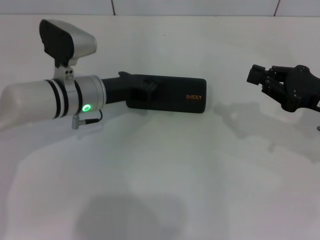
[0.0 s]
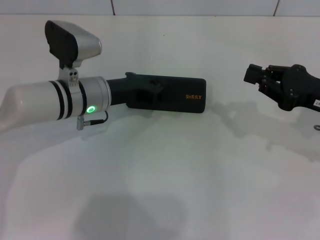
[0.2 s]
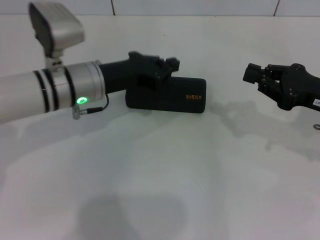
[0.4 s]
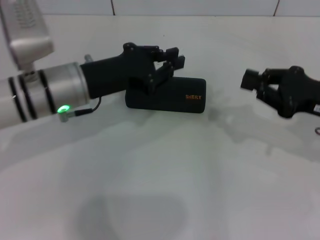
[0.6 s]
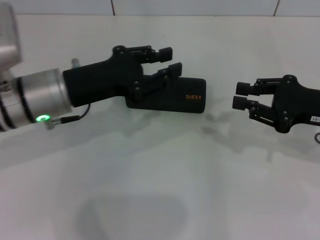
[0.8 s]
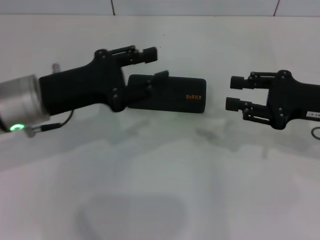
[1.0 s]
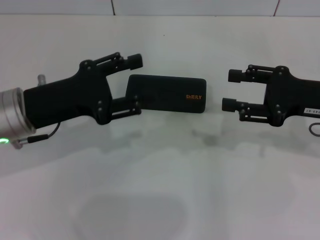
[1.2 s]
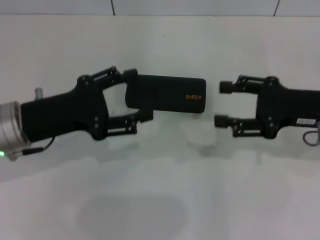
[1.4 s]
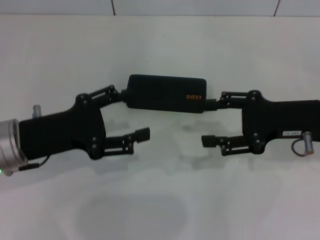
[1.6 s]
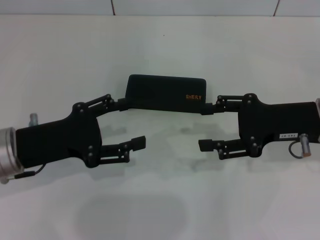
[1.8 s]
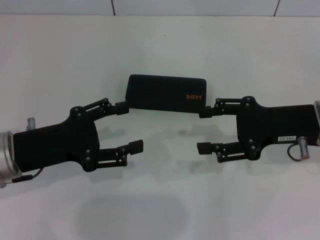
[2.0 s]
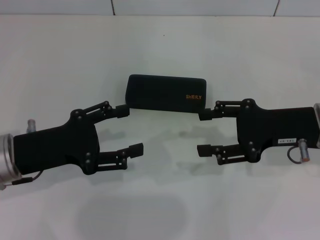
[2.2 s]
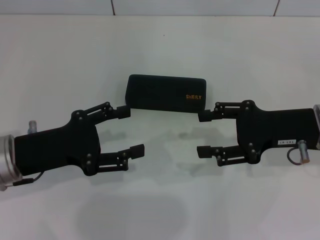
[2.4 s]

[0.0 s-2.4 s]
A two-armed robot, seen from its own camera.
0.0 to 1.2 s: The left gripper heads backward, upward and to the left, covering approximately 15 cm, and opens its fingers; the right gripper opens.
1.2 to 2.4 s: The left gripper changes place by roughly 5 cm, and opens up.

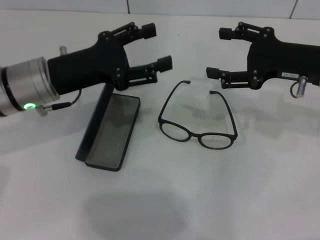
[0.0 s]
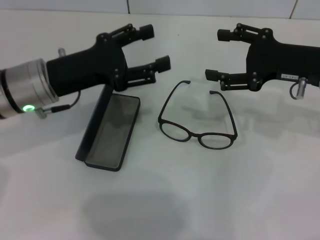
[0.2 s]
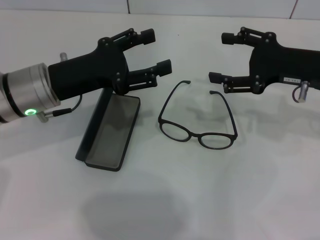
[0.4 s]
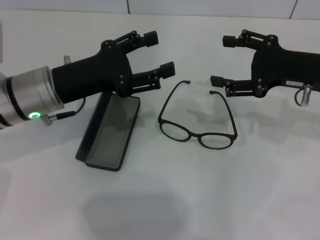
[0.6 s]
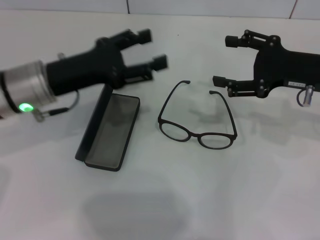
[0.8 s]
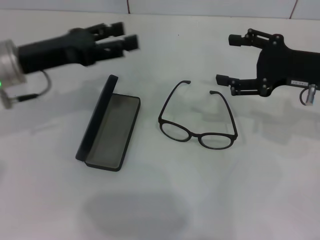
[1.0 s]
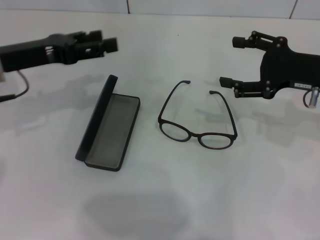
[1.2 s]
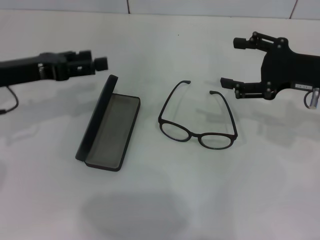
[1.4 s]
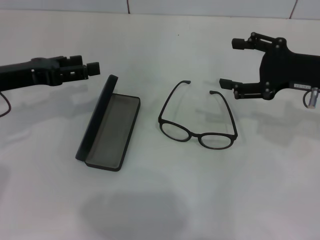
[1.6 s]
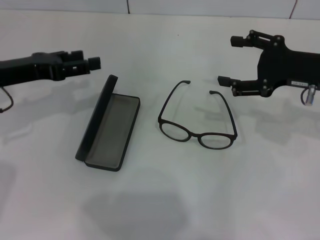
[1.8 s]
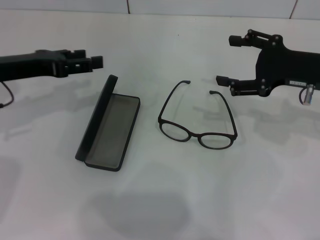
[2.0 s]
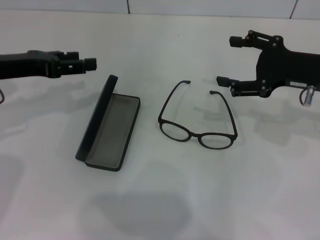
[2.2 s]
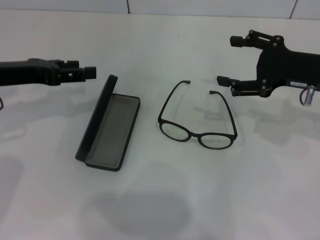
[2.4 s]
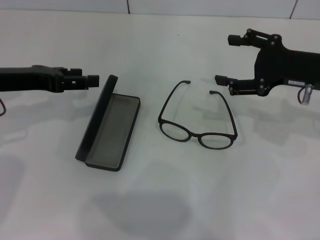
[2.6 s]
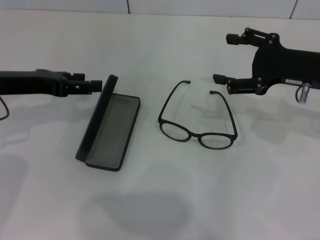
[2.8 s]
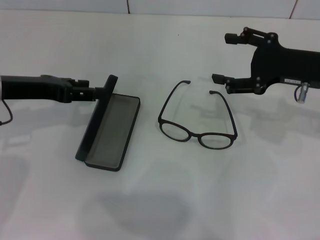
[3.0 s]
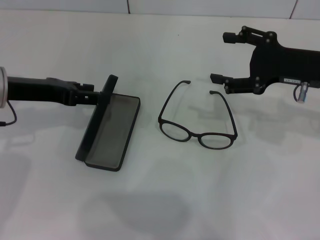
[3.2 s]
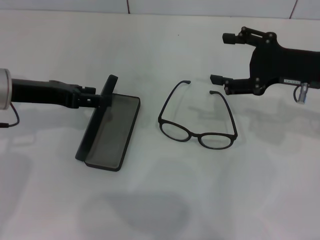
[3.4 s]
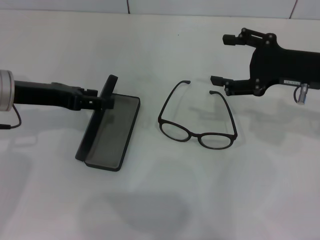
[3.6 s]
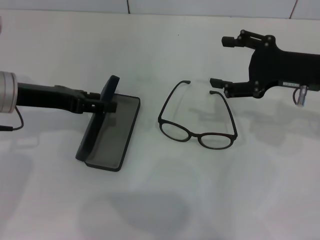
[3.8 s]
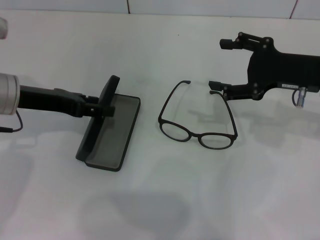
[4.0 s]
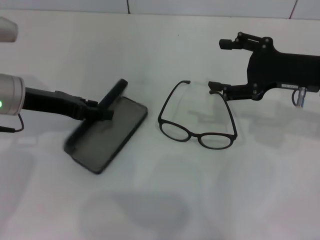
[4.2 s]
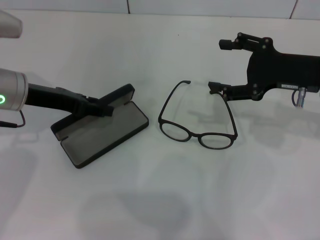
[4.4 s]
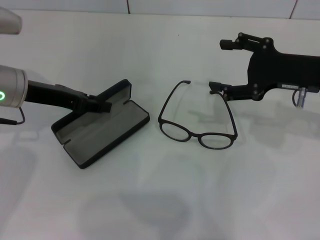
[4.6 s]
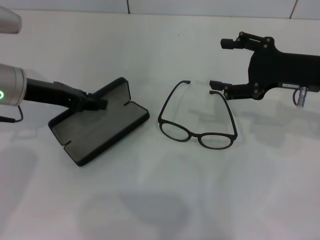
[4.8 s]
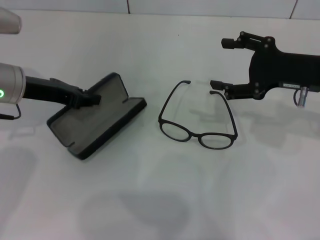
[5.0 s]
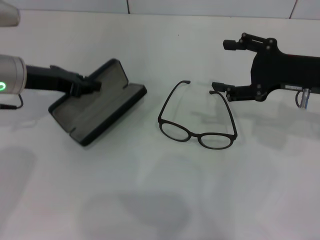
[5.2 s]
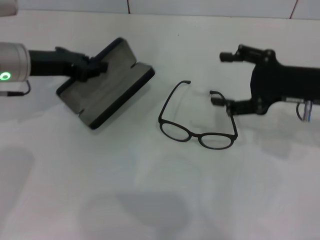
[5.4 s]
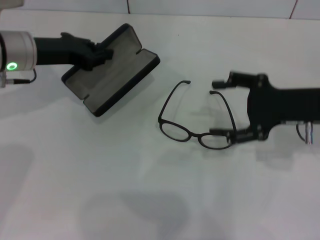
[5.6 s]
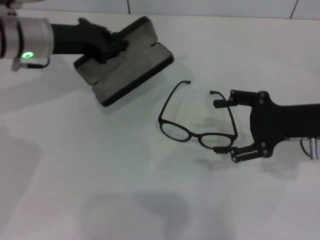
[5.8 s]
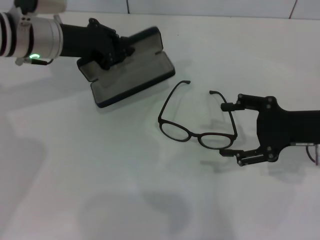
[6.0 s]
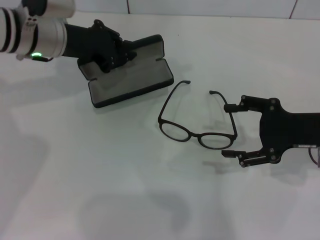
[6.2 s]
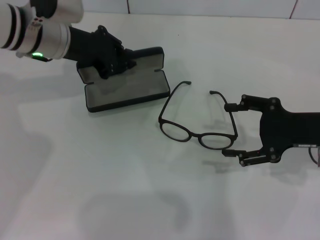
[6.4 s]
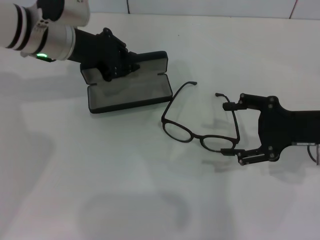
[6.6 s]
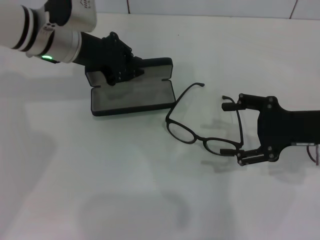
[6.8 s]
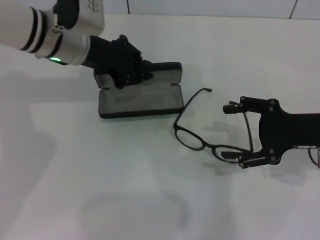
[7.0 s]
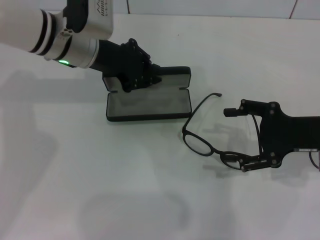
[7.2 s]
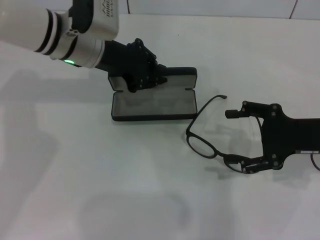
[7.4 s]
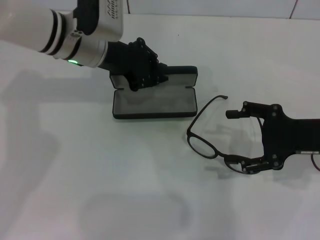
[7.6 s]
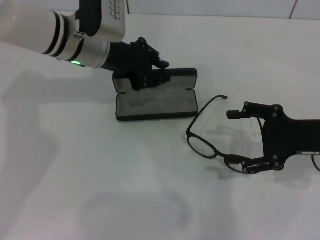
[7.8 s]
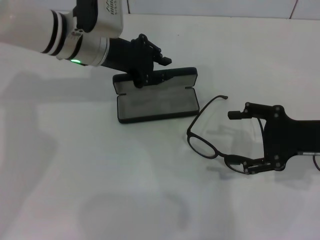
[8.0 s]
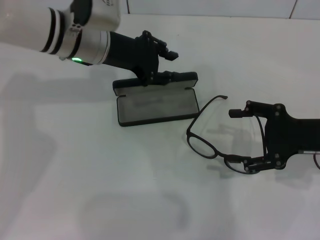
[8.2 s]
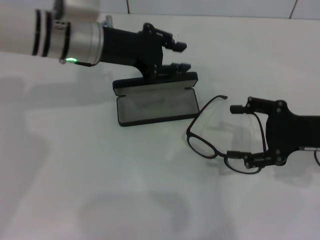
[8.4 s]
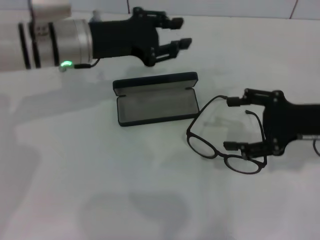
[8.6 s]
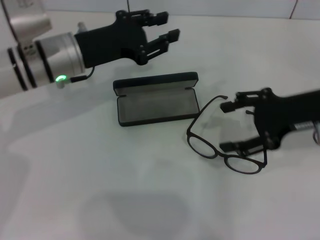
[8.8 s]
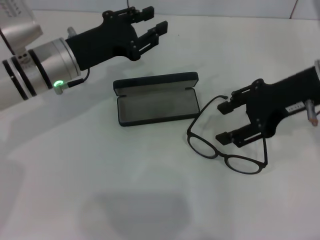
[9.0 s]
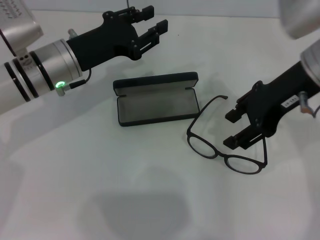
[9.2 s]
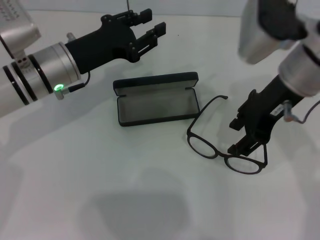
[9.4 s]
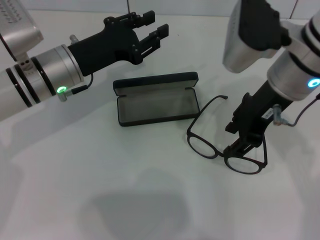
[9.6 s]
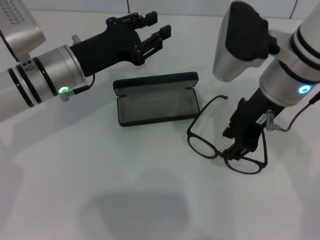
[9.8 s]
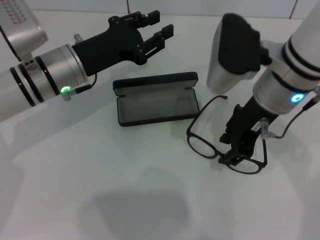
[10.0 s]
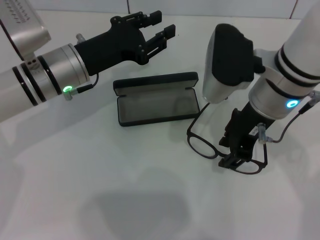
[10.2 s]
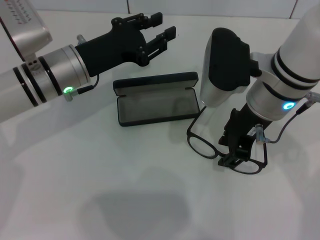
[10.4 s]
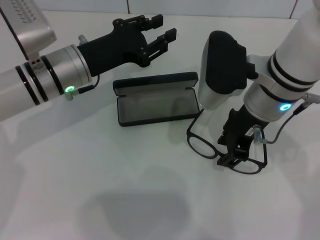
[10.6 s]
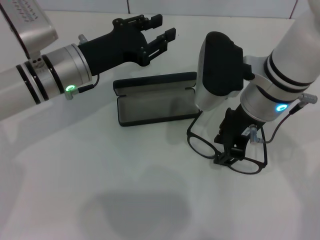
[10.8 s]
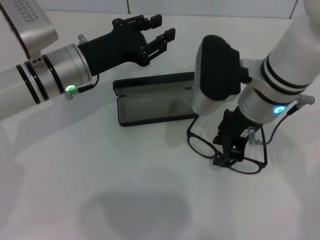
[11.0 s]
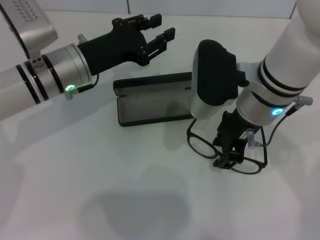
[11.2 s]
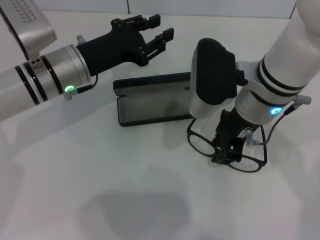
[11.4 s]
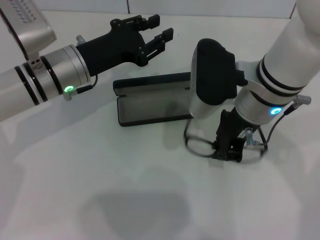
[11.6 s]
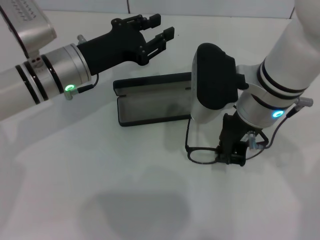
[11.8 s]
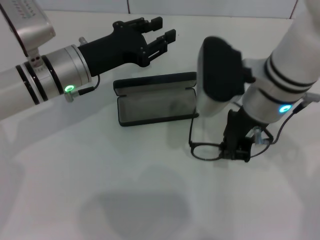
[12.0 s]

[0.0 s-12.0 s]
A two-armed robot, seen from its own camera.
Step, 0.0 to 4.4 s: Grab the glasses case with your left hand.
Step, 4.6 to 7.8 s: Place the glasses case in the center of the table with your left hand.
Step, 8.0 to 11.8 s: Grab the eyeglass frame with your right hand.
0.0 to 1.6 s: The left gripper heads to the left, covering some 10 cm.
1.6 to 3.0 s: There are only small adjustments of the grippers.
3.0 to 4.4 s: The grippers stay close to where they were, moving slightly.
4.4 to 6.0 s: The right gripper is displaced backward by roughly 5 cm, while the left gripper heads forward, covering approximately 5 cm, and closes its fingers.
6.0 to 7.6 s: The left gripper shifts roughly 5 cm to the right.
7.6 to 9.0 s: The right gripper shifts approximately 10 cm upward and to the left. The left gripper travels backward by some 5 cm.
9.0 to 10.4 s: The right gripper moves to the left, approximately 10 cm, and closes its fingers.
10.4 to 12.0 s: The right gripper closes.

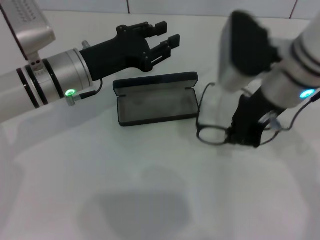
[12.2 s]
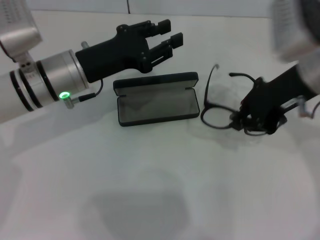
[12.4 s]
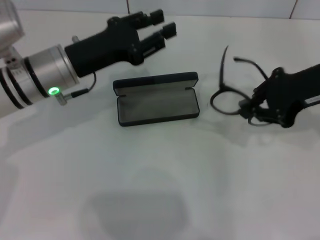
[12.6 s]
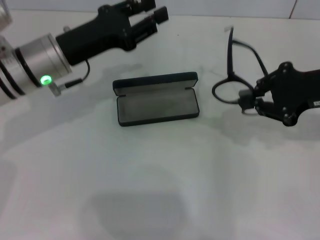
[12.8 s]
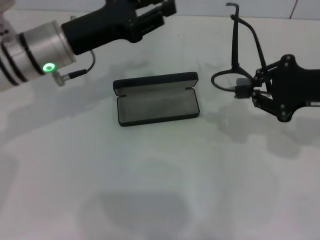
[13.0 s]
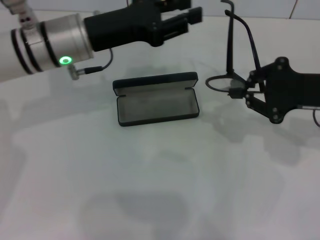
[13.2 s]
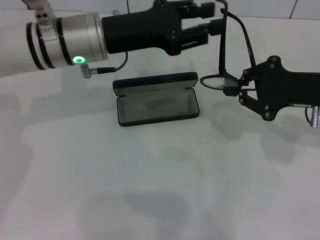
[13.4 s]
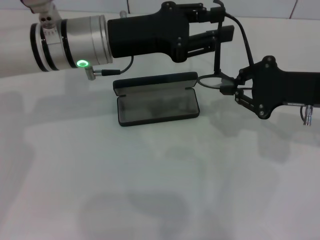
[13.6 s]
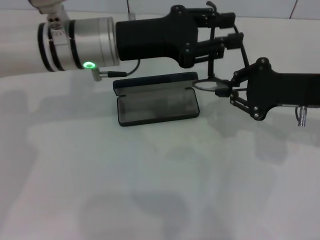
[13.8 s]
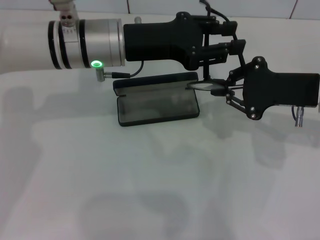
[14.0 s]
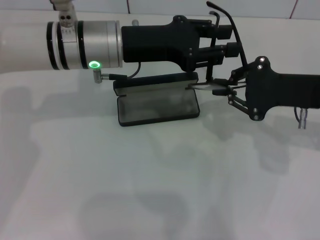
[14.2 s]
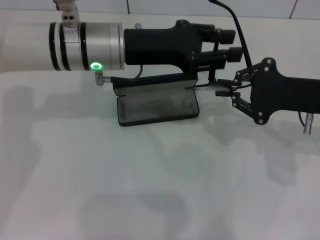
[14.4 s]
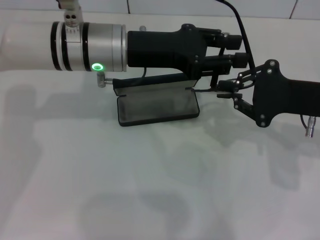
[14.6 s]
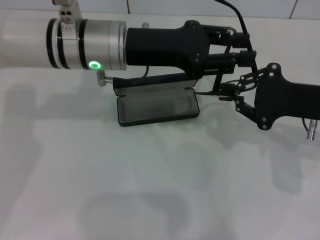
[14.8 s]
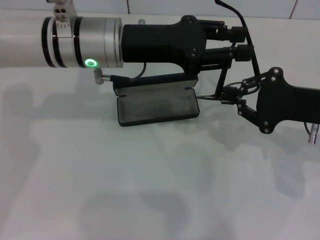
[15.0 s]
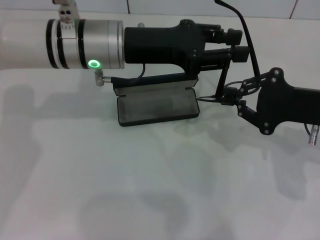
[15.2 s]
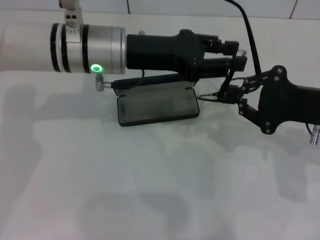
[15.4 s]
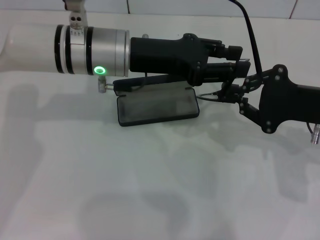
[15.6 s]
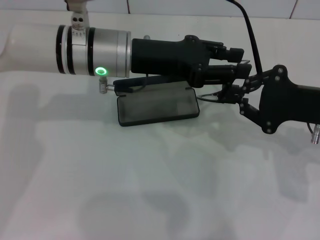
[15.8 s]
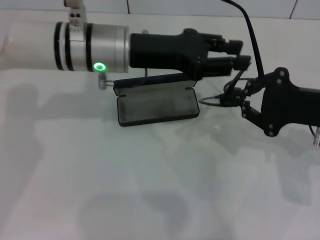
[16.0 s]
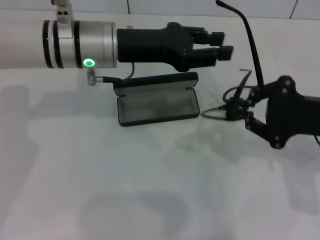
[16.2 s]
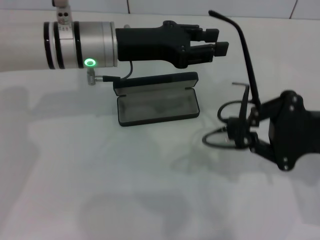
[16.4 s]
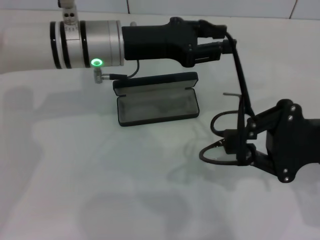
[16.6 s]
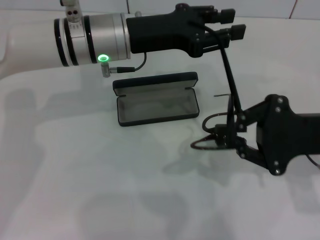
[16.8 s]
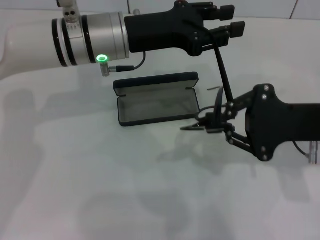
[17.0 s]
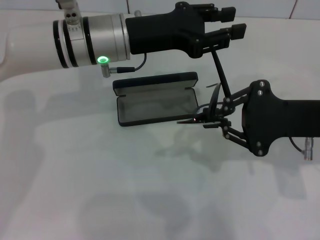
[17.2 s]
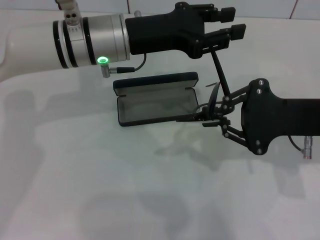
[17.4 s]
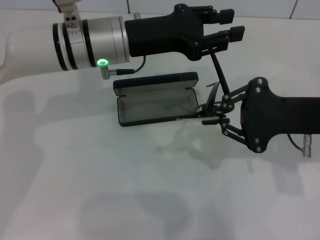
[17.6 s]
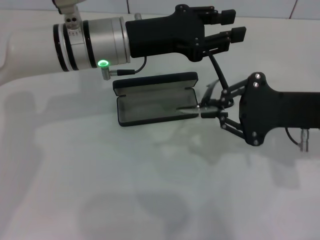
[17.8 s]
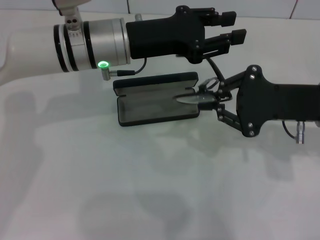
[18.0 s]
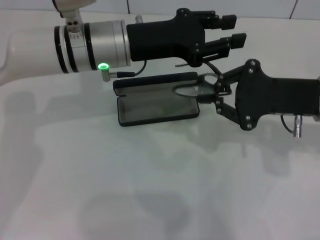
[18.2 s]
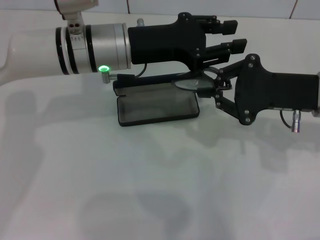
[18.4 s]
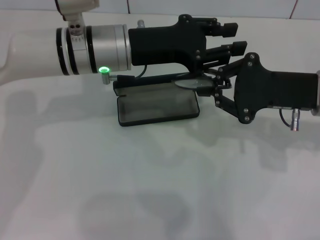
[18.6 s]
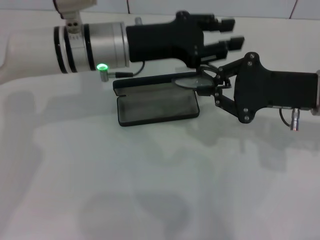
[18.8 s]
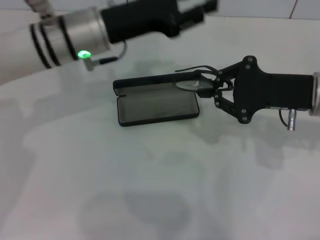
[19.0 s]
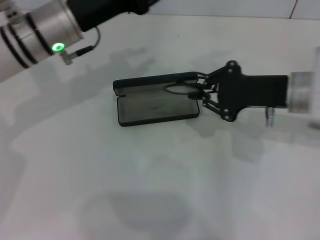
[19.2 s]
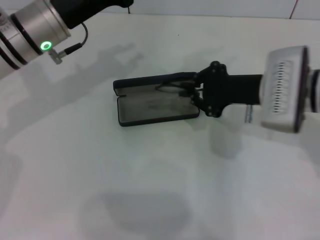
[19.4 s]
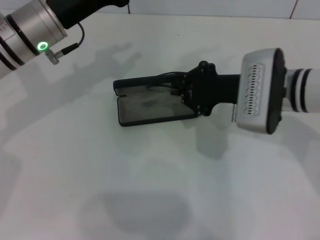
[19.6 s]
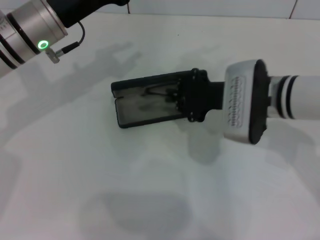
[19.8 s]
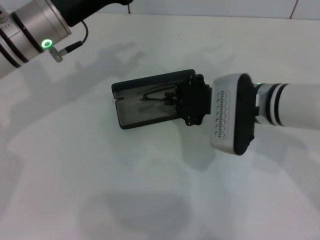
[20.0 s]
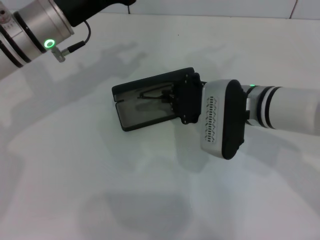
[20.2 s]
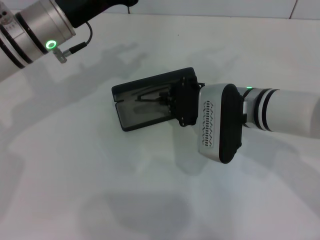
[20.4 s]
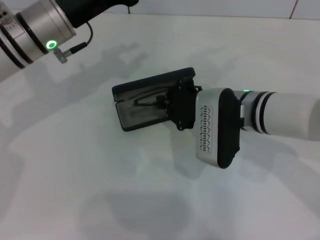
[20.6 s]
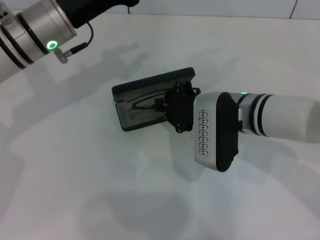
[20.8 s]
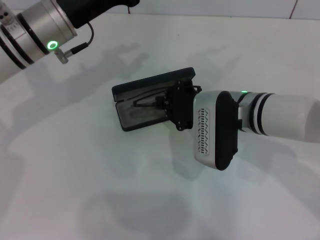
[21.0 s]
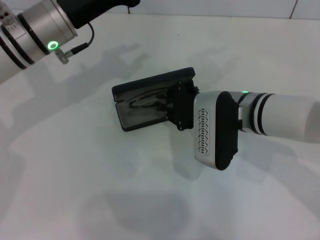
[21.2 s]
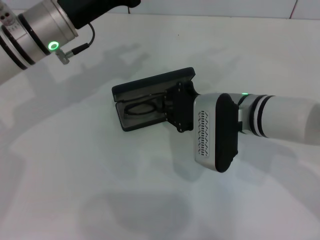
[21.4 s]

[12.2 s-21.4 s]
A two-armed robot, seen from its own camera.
Step, 12.2 to 18.4 s: Fold the frame with your left hand.
12.2 to 13.8 s: The left gripper heads upward, covering some 5 cm, while the right gripper heads to the right and downward, covering about 10 cm.
16.8 to 18.4 s: The right gripper changes place by roughly 5 cm.
18.4 to 19.8 s: Both grippers move to the left, approximately 10 cm.
19.8 to 21.4 s: There are only small adjustments of the grippers.
